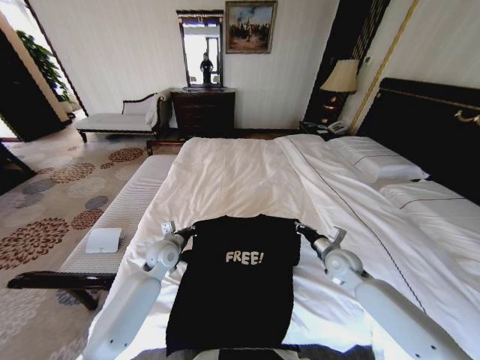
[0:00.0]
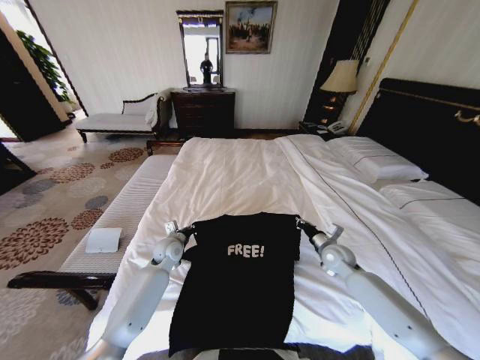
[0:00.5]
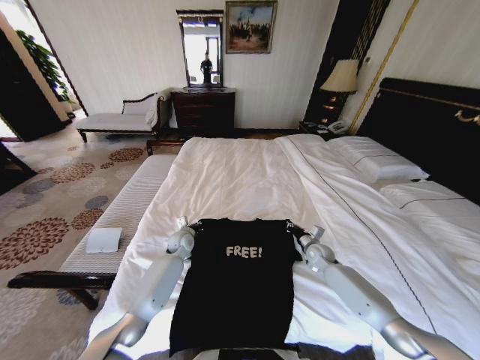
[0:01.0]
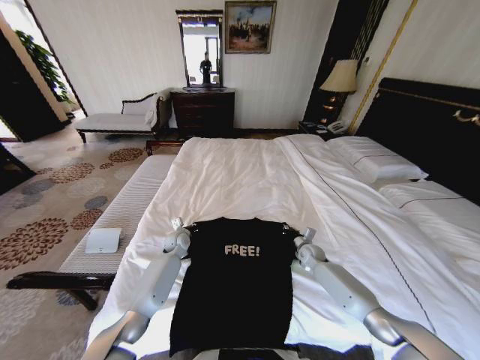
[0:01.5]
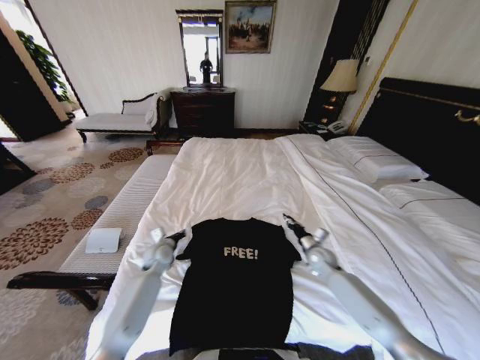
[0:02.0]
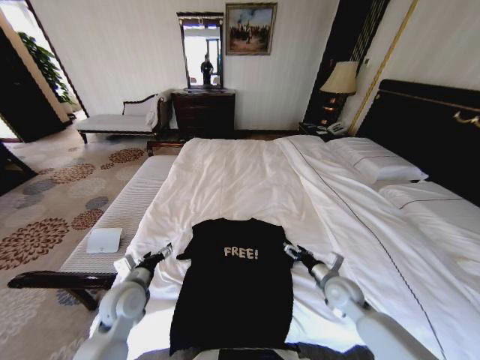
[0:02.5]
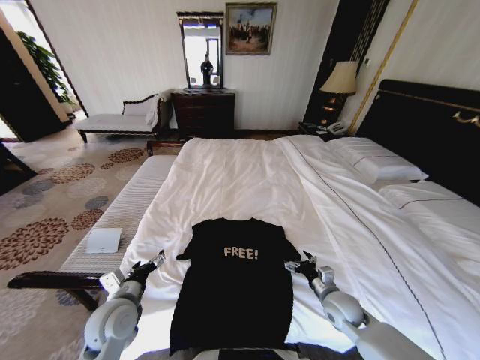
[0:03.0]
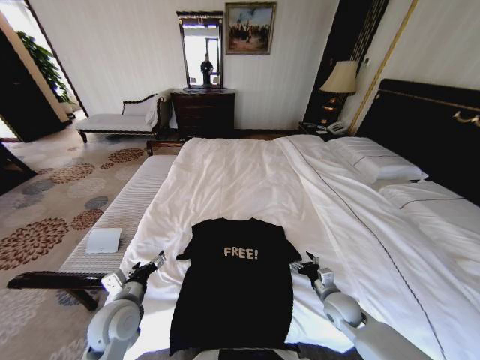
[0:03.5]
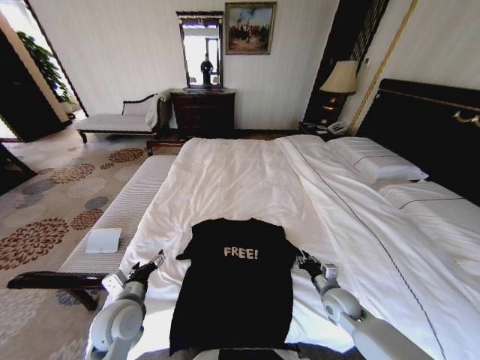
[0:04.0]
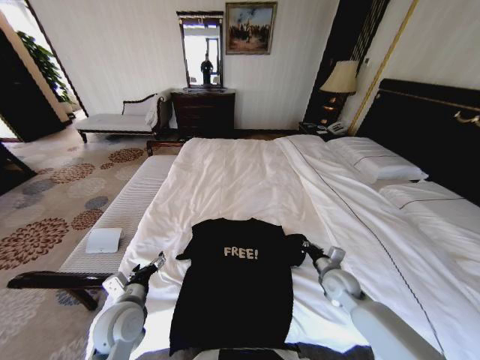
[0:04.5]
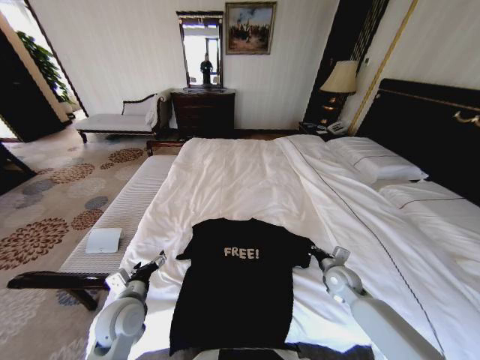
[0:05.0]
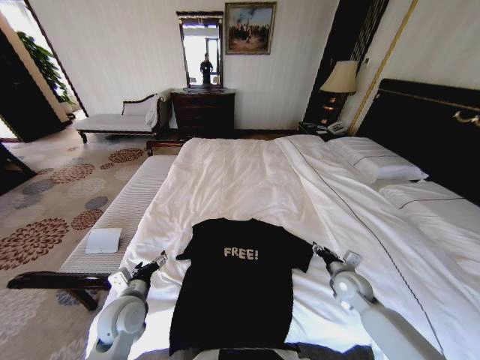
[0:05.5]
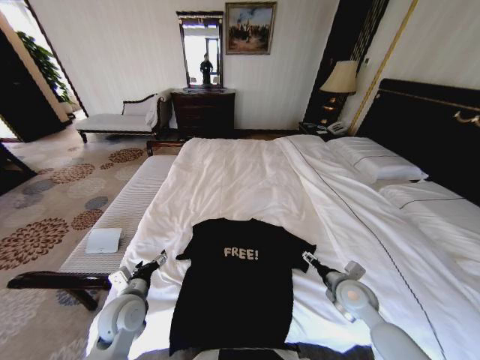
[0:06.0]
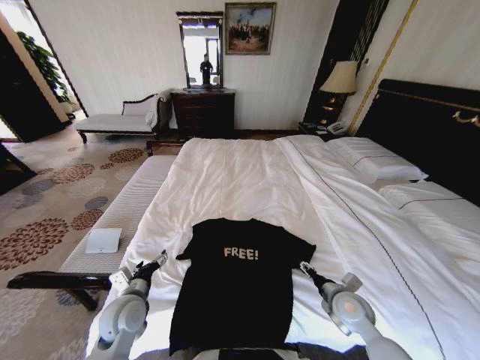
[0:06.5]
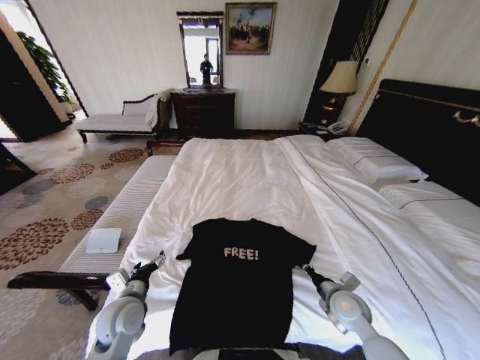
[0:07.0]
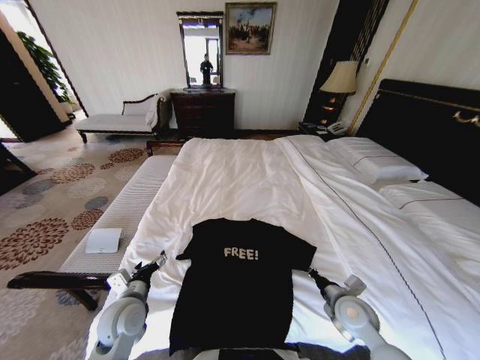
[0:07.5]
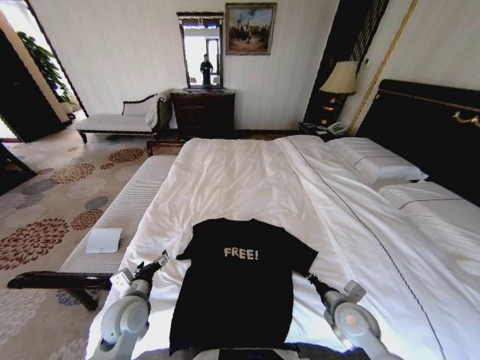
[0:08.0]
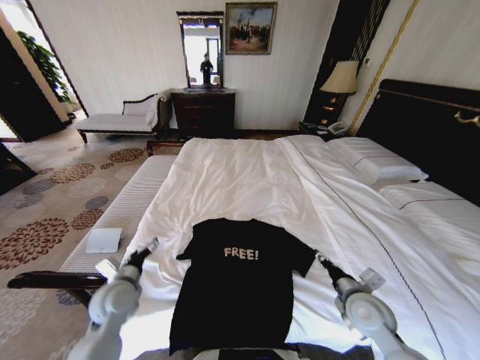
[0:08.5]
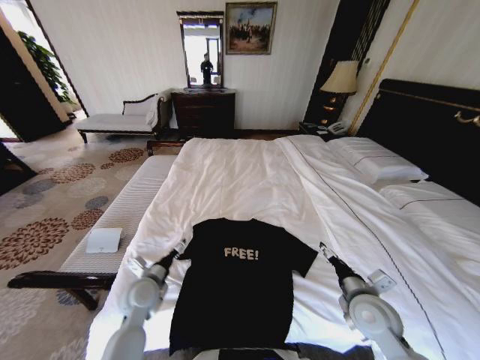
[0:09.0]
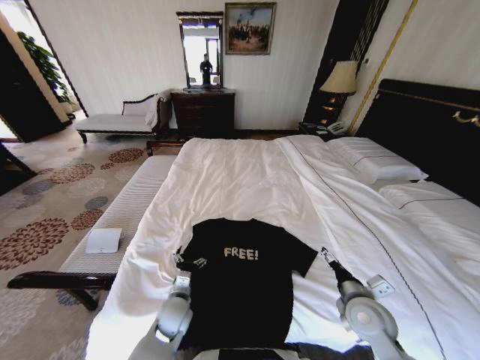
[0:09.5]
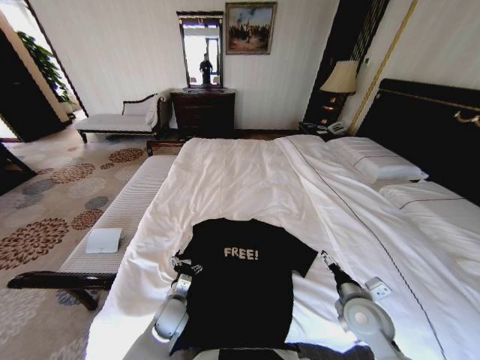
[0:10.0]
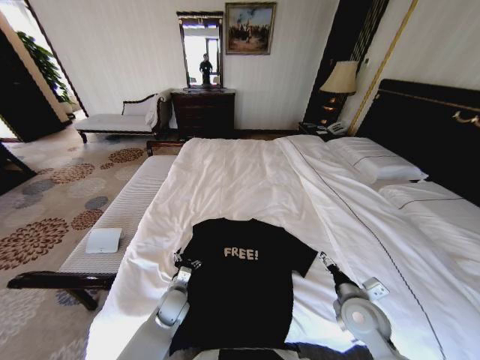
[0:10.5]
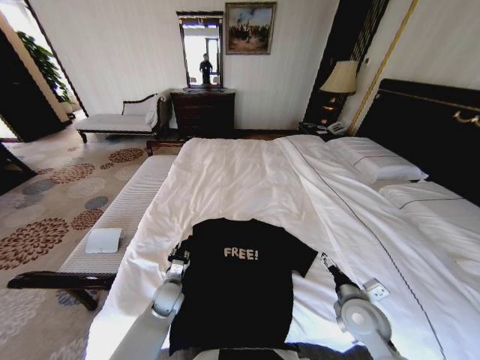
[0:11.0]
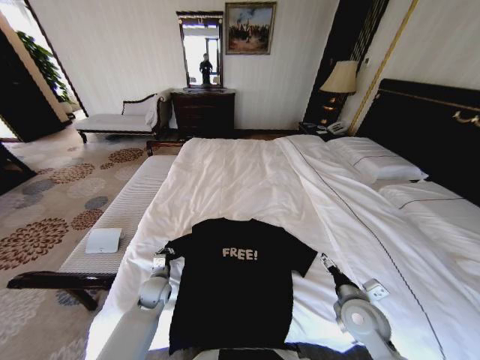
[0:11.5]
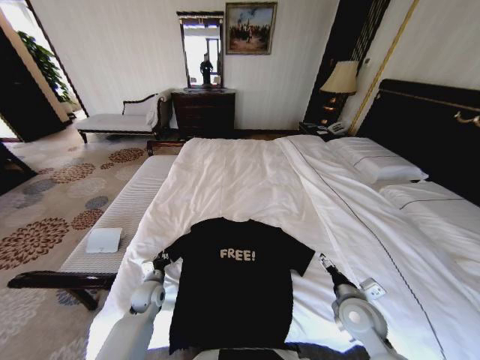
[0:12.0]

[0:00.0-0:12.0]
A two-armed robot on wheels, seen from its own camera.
Task of the whole recording: Fold the clothes on the bed.
0:00.0 to 0:02.0: The left gripper heads downward, covering some 5 cm, and travels forward and back again, some 10 cm each way, while the right gripper goes roughly 10 cm downward and forward.
0:02.0 to 0:04.0: The grippers both shift backward by some 15 cm. The left gripper opens its fingers. Meanwhile the right gripper opens, then closes again.
0:04.0 to 0:06.0: The right gripper shifts about 5 cm upward, and opens up.
0:06.0 to 0:08.0: The right gripper travels backward by about 5 cm, and closes up.
0:08.0 to 0:10.0: The left gripper is displaced downward and to the right by some 15 cm, while the right gripper opens.
0:10.0 to 0:12.0: The left gripper shifts about 10 cm to the left and forward, and closes up.

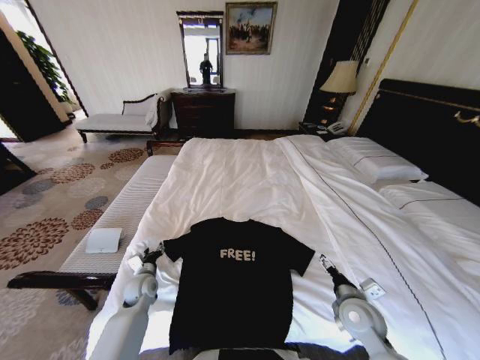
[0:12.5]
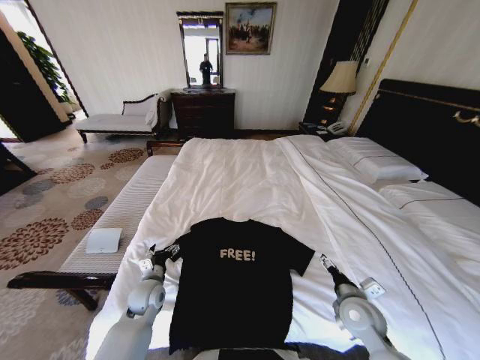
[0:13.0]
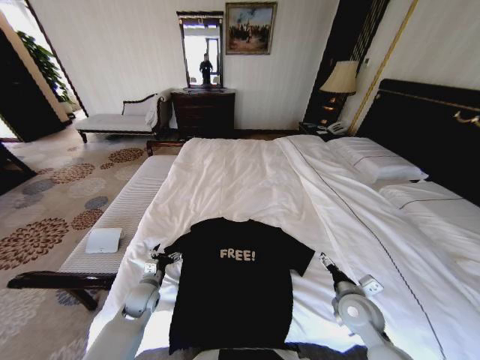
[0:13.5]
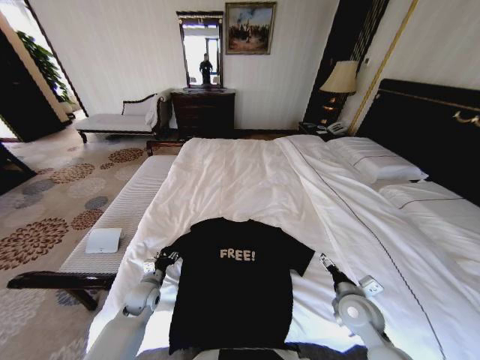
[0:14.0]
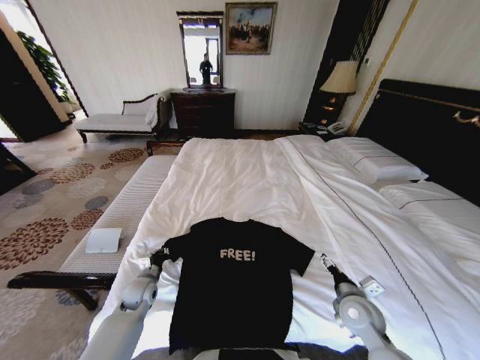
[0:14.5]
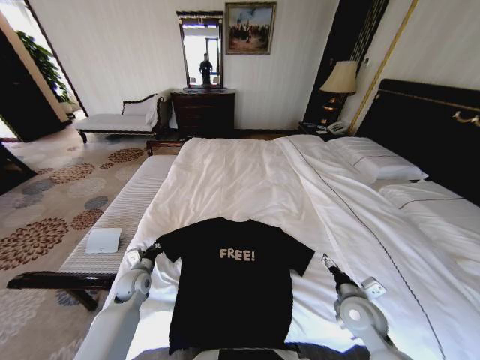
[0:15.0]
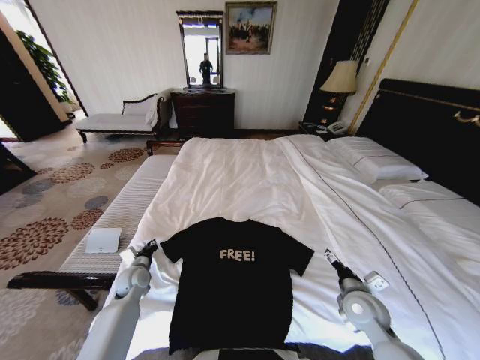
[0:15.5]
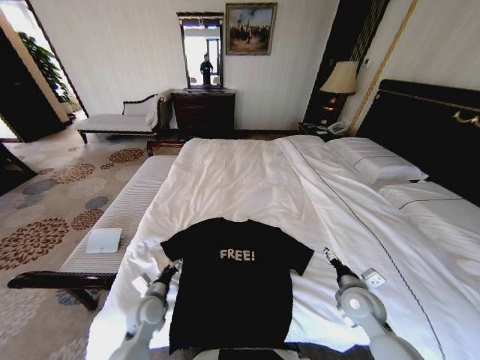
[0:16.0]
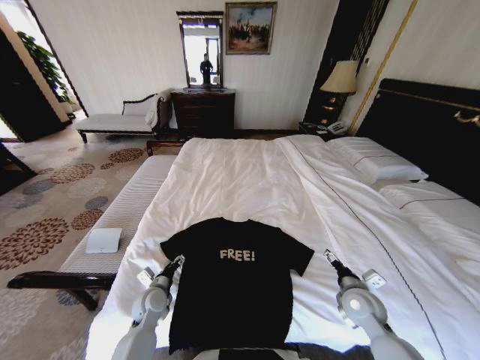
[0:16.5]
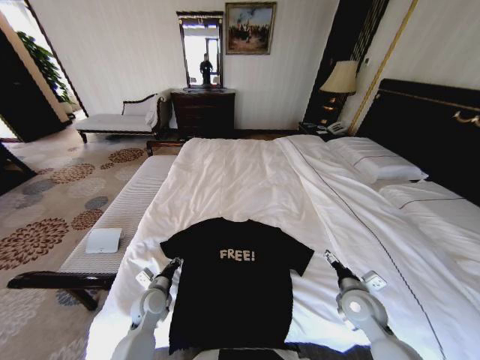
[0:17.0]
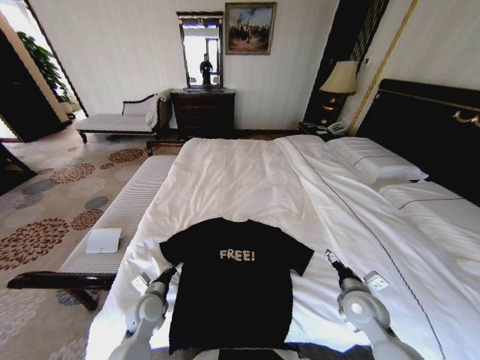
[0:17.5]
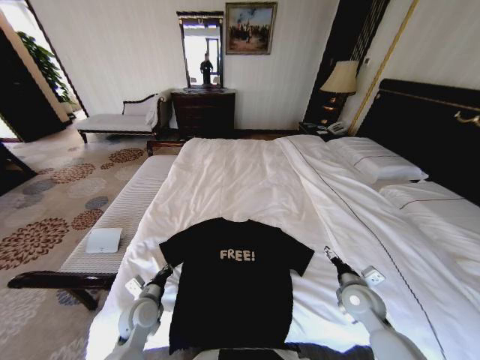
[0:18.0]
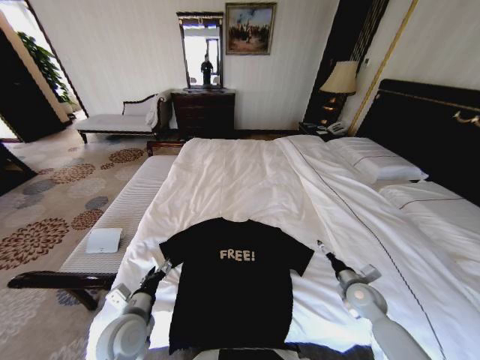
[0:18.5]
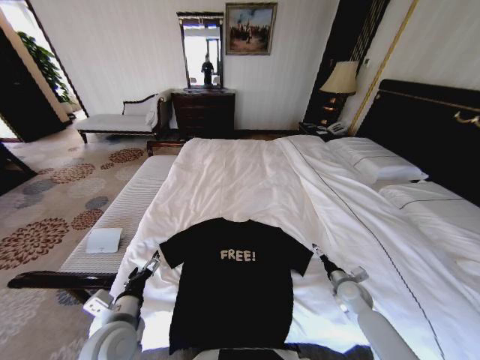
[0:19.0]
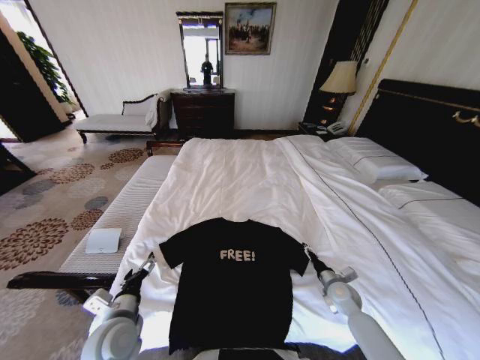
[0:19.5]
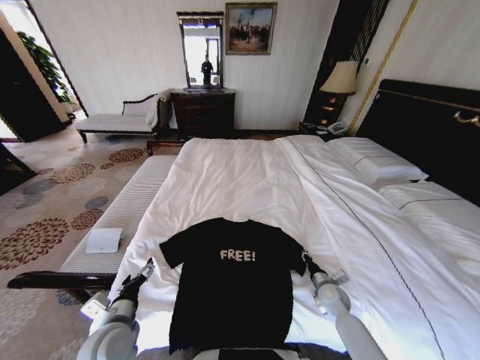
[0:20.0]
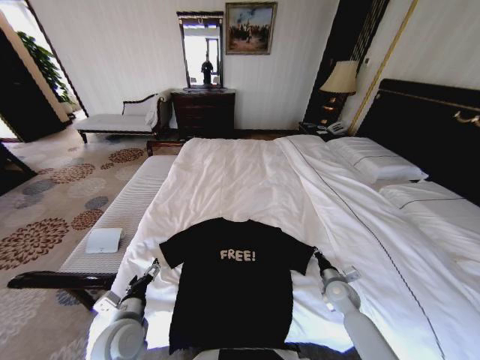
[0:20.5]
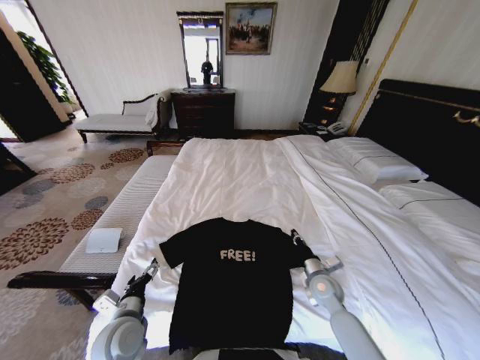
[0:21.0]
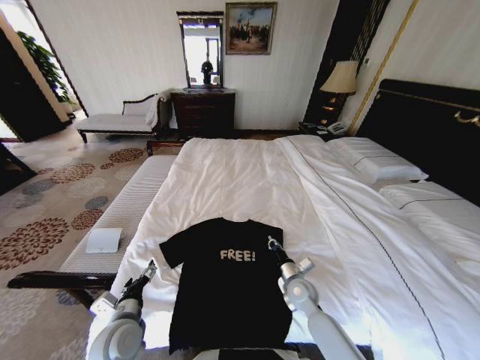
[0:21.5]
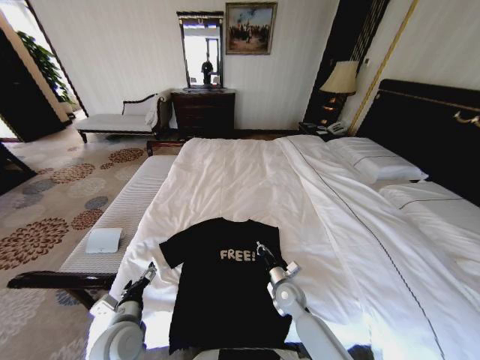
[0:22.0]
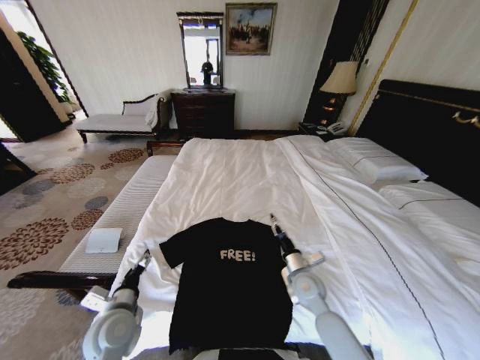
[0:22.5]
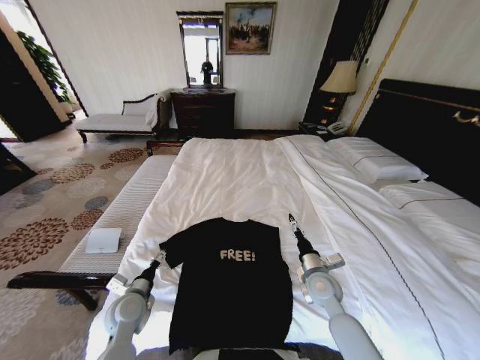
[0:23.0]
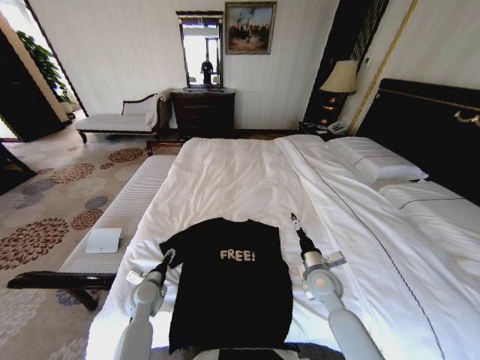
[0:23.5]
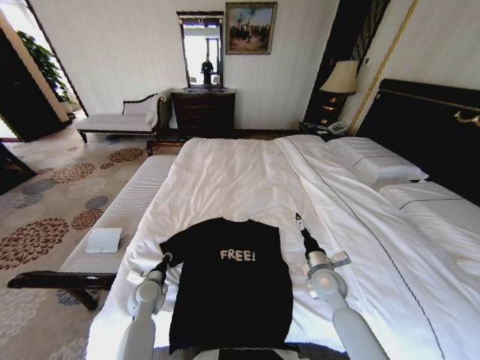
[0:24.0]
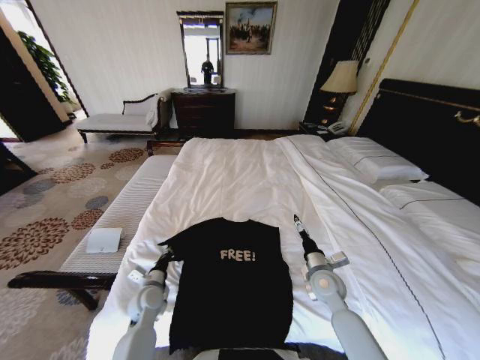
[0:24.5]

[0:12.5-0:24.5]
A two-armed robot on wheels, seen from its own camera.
Task of the whole recording: Fold the clothes on the bed.
0:12.5 to 0:14.5: The left gripper closes up.
0:14.5 to 0:16.5: The left gripper changes place by some 5 cm, and opens up.
0:16.5 to 0:18.5: The left gripper shifts some 15 cm upward and backward, and closes and opens again, while the right gripper shifts roughly 5 cm to the right.
0:18.5 to 0:20.5: The right gripper shifts by approximately 5 cm, and closes up.
0:20.5 to 0:22.5: The right gripper moves to the left and upward, approximately 15 cm, and opens.
0:22.5 to 0:24.5: The right gripper moves to the right, roughly 5 cm, and opens its fingers; the left gripper heads downward and forward, covering roughly 15 cm, and closes up.

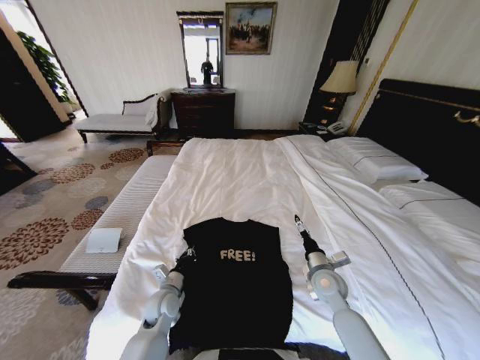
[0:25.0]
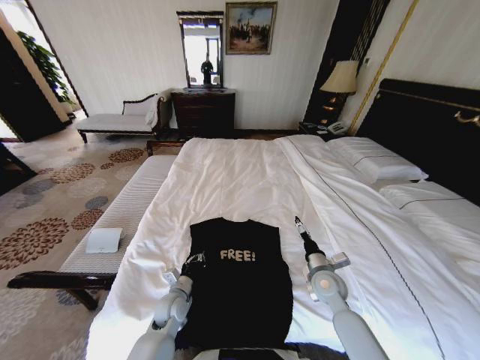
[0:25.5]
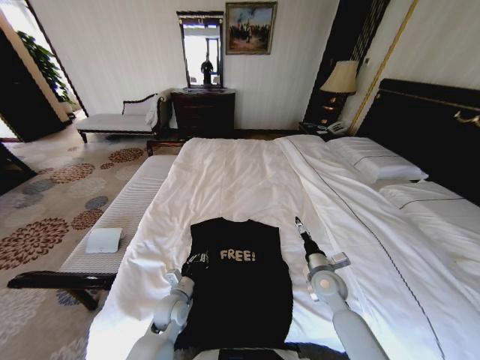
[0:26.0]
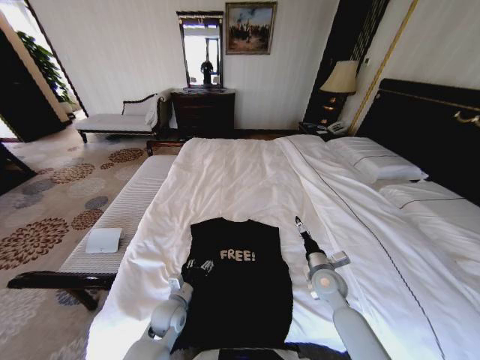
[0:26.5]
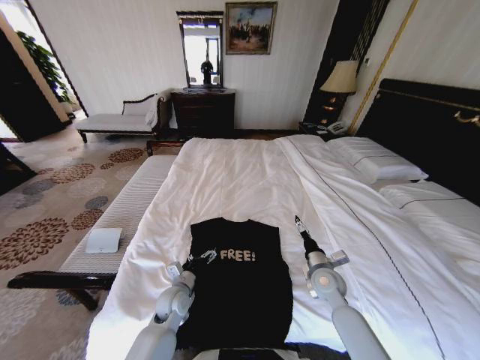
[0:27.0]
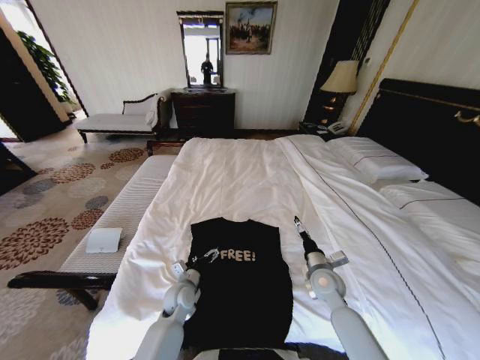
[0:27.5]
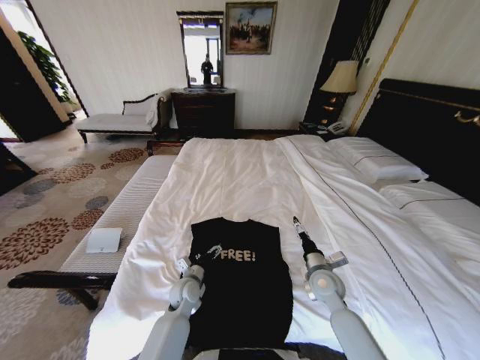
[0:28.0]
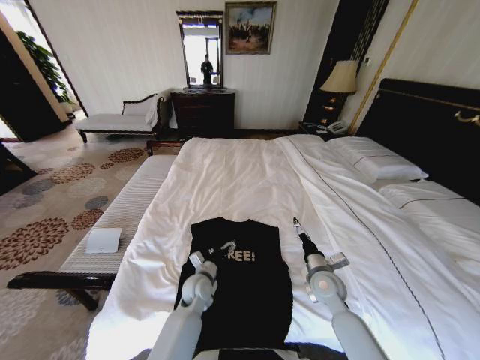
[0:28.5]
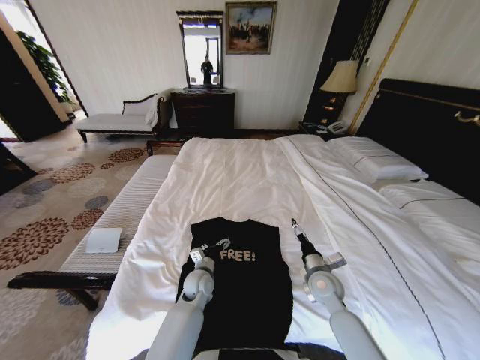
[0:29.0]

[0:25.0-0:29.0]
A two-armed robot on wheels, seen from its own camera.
Task of the whole recording: Fold the clothes on the bed.
0:25.0 to 0:27.0: The left gripper opens.
0:27.0 to 0:29.0: The left gripper is displaced to the right and forward by approximately 10 cm.
